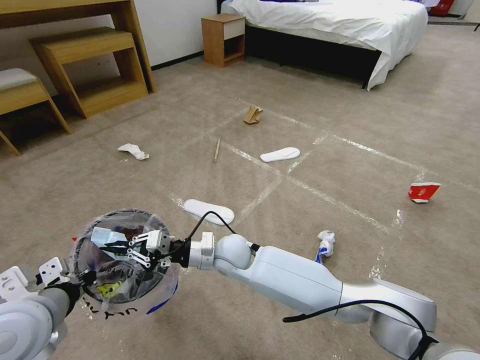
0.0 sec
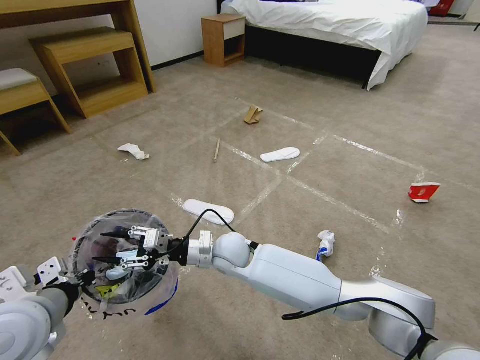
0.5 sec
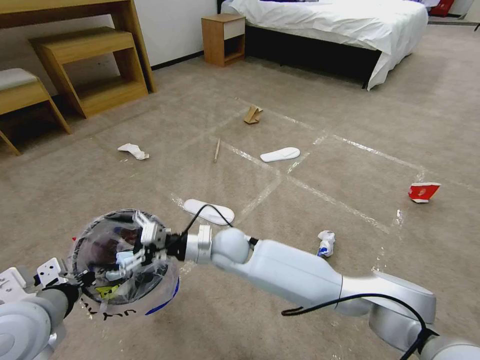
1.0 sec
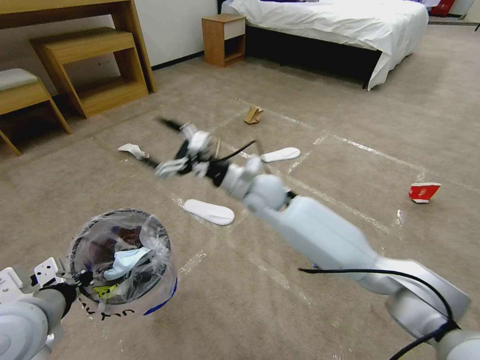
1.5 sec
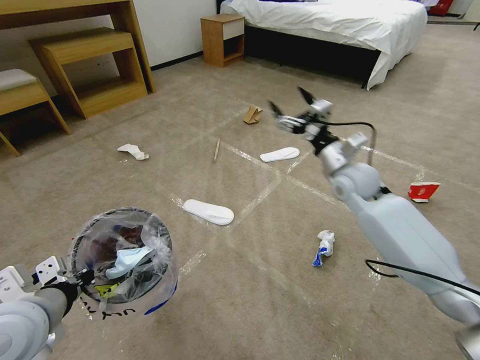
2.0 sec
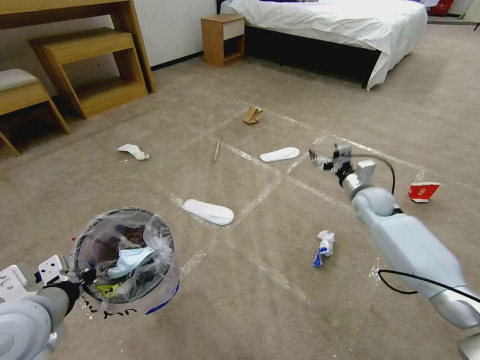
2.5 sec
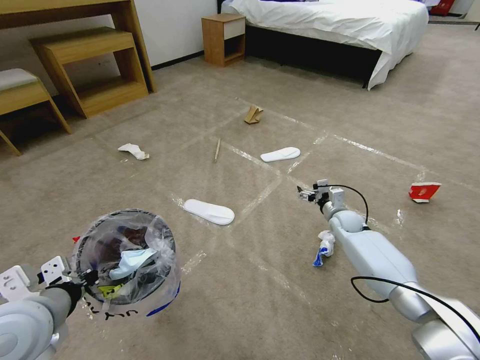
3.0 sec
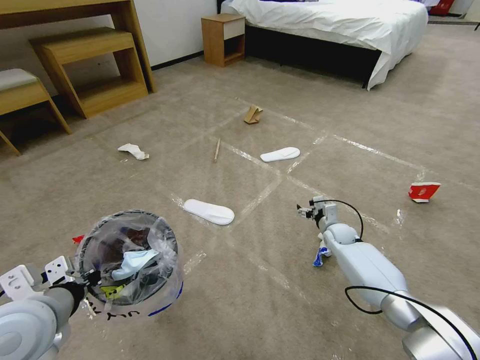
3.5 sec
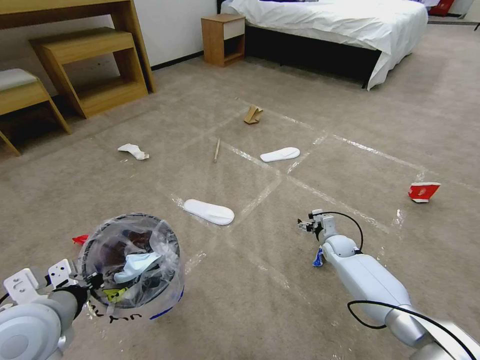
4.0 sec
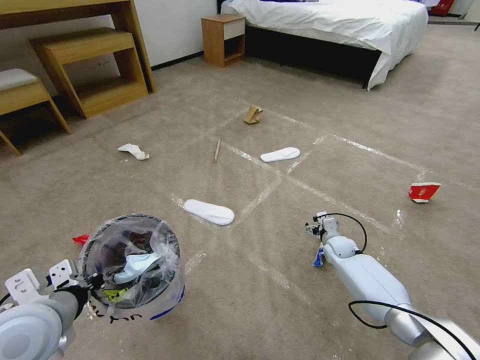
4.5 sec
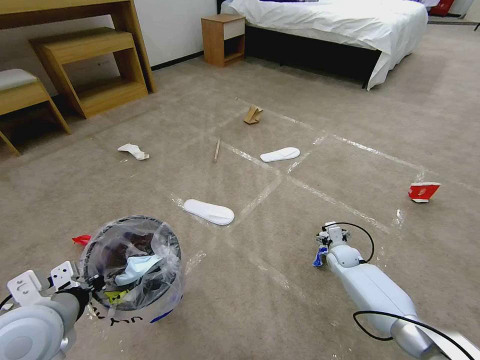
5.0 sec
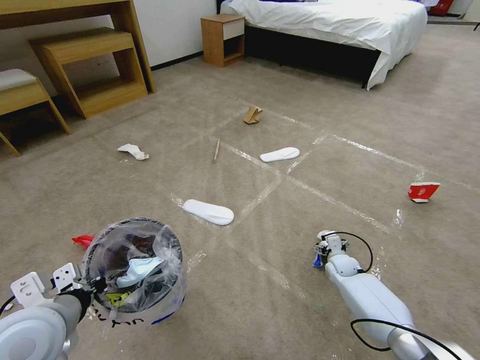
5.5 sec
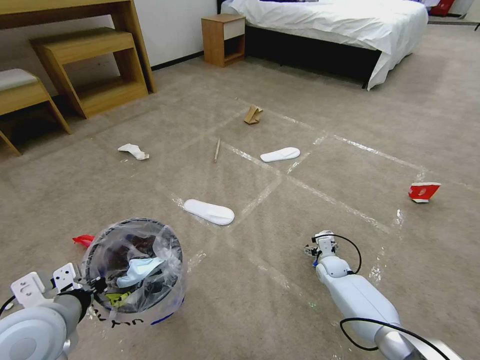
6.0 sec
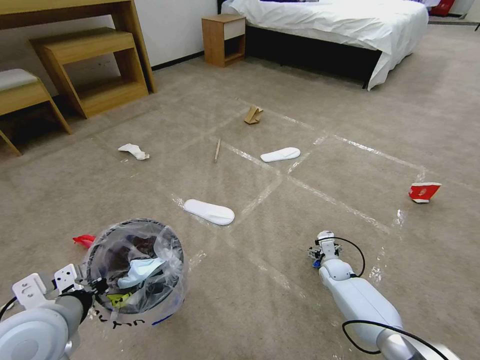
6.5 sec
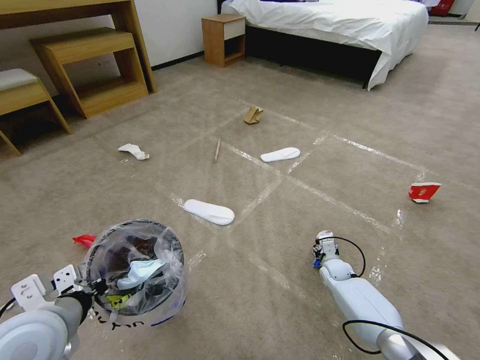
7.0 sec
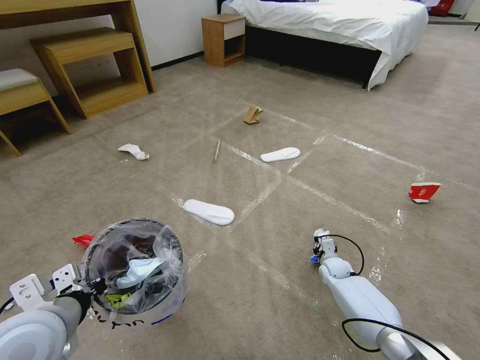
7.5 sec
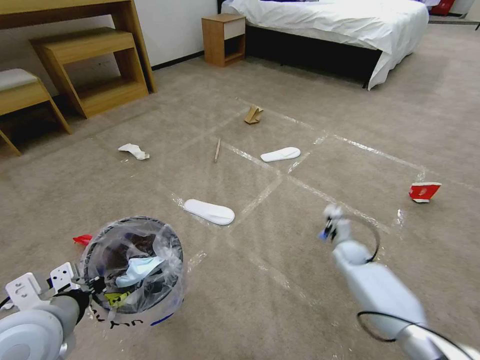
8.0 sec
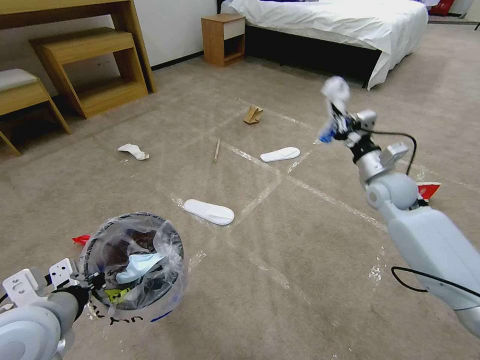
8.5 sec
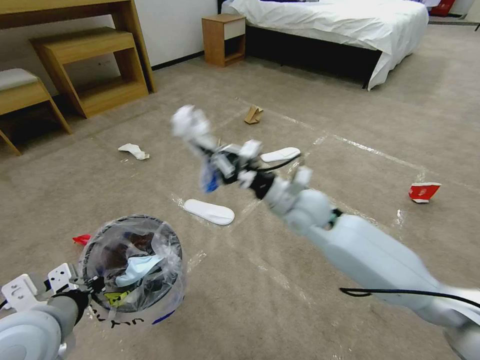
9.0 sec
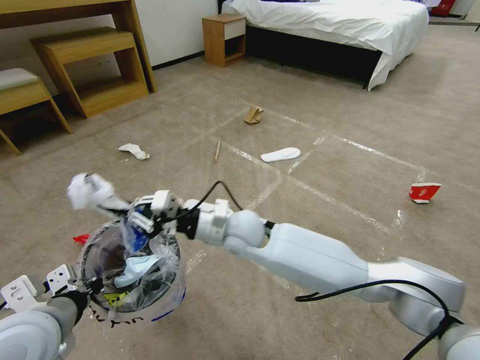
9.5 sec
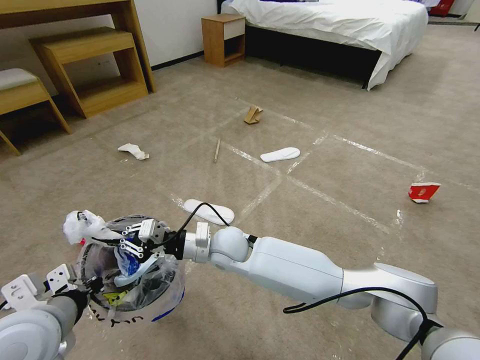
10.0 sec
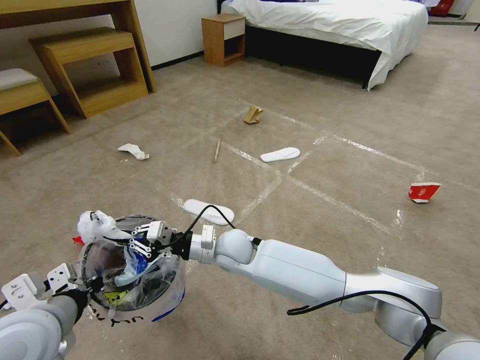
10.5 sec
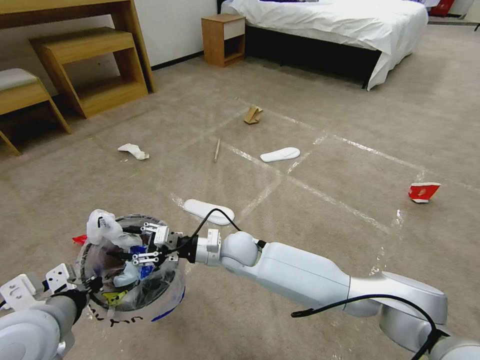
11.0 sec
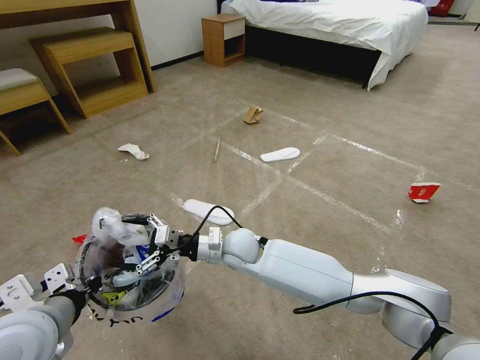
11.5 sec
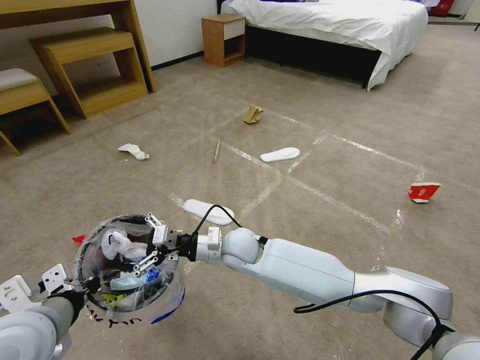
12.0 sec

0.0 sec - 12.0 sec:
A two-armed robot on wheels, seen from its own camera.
Task of the whole recording: Pick up the trash bin and place the garbage on the floor into it.
0.0 sec - 2.0 sec: The right gripper heads to the right and upward, covering some 30 cm, and opens its fingers.
2.0 sec - 4.0 sec: The right gripper shifts some 30 cm downward.
4.0 sec - 6.0 sec: The right gripper heads downward, covering roughly 5 cm.
6.0 sec - 8.0 sec: The right gripper goes some 5 cm upward, and closes up.
8.0 sec - 10.0 sec: The right gripper travels to the left and upward by roughly 40 cm.
10.0 sec - 12.0 sec: The right gripper opens its fingers.

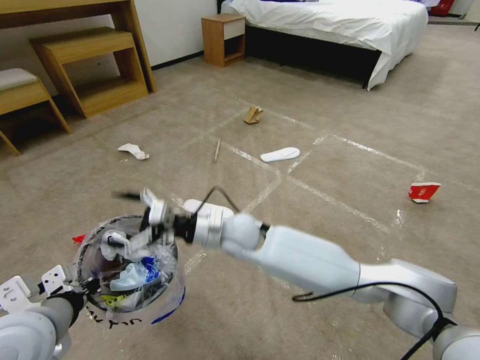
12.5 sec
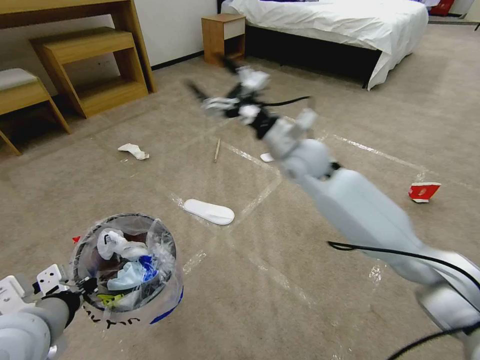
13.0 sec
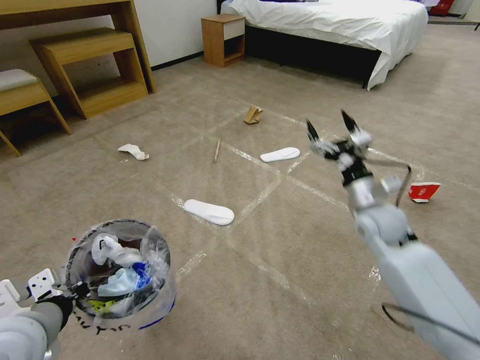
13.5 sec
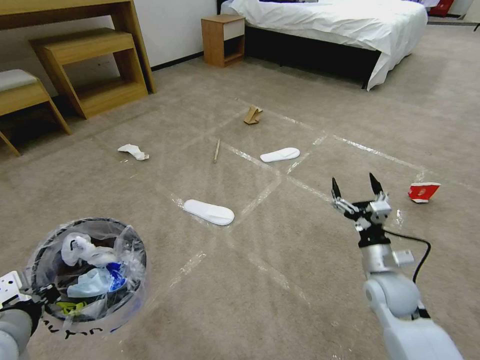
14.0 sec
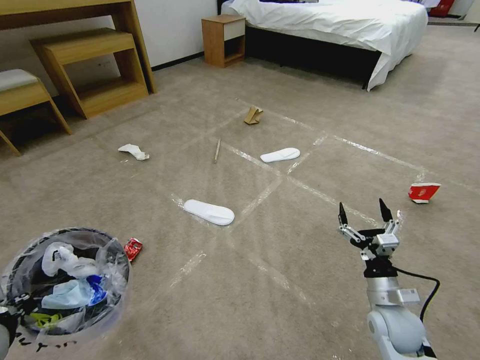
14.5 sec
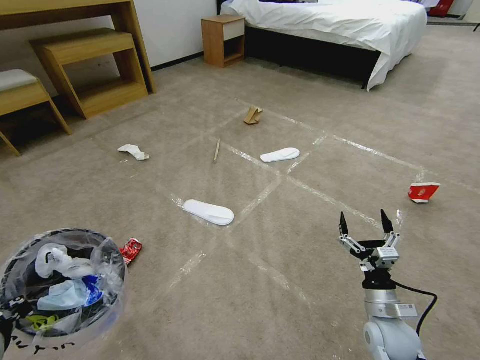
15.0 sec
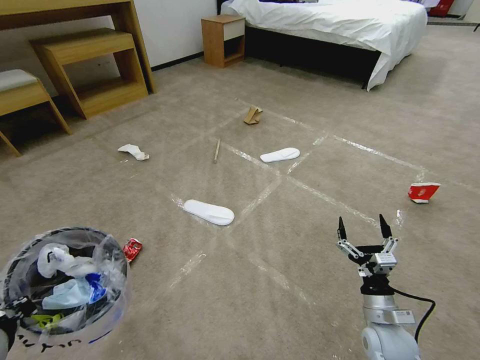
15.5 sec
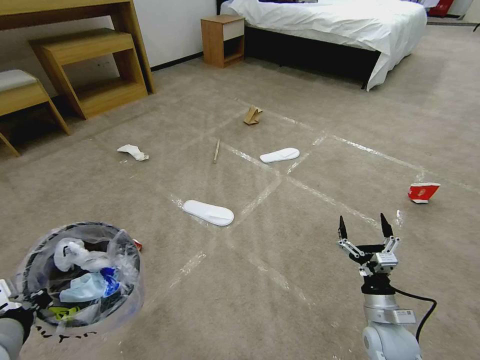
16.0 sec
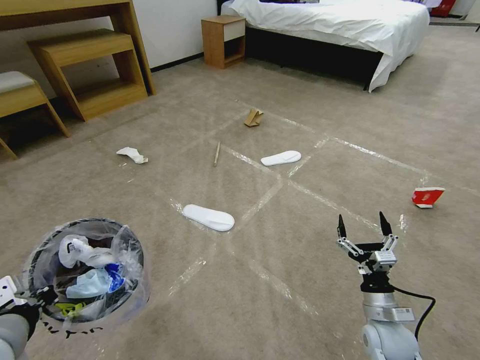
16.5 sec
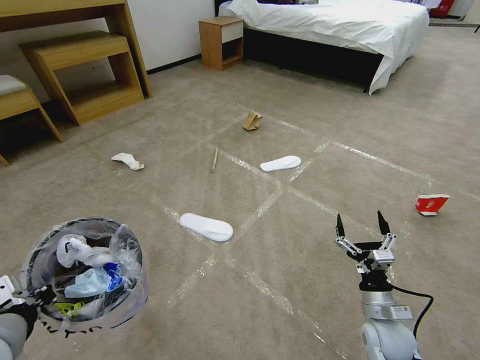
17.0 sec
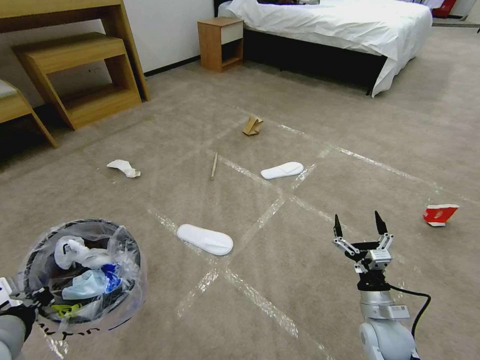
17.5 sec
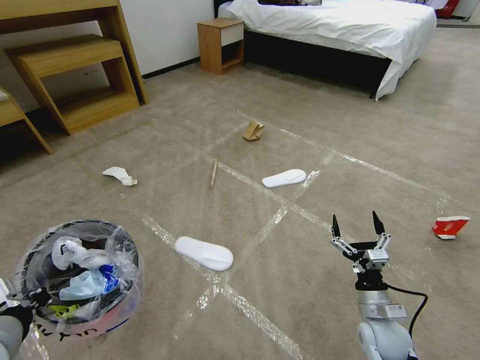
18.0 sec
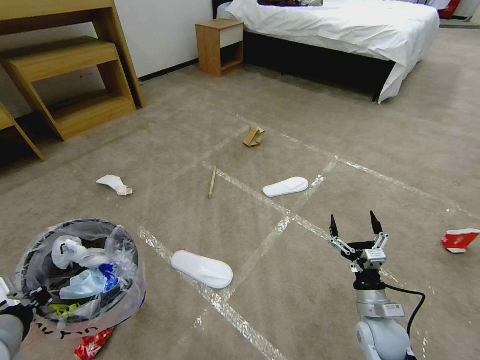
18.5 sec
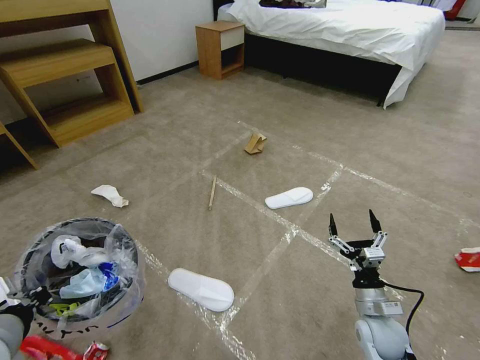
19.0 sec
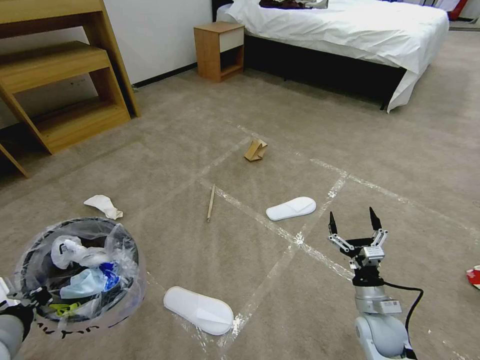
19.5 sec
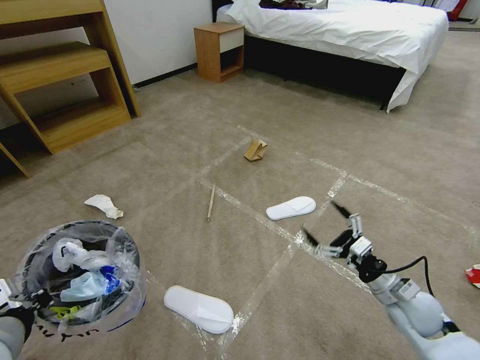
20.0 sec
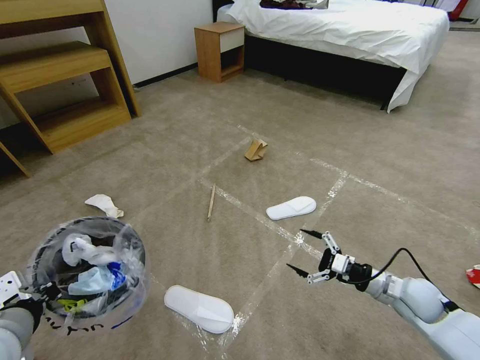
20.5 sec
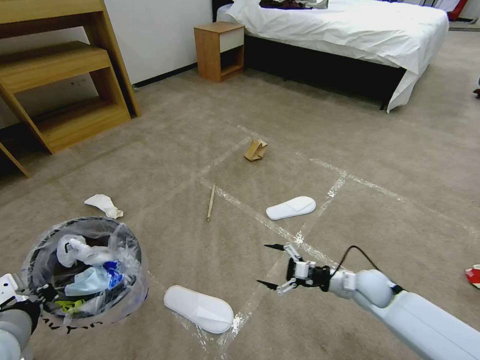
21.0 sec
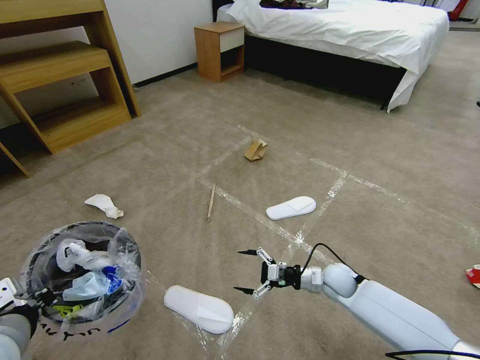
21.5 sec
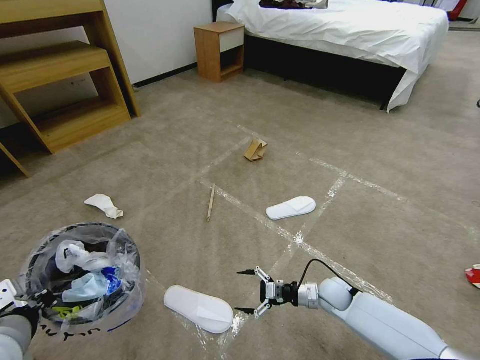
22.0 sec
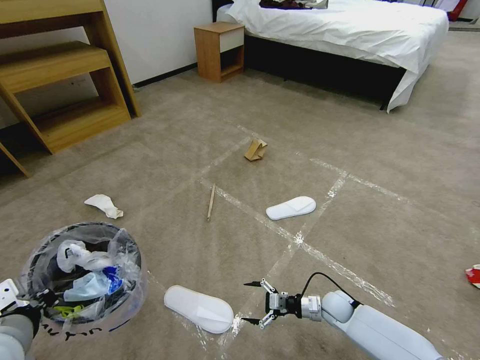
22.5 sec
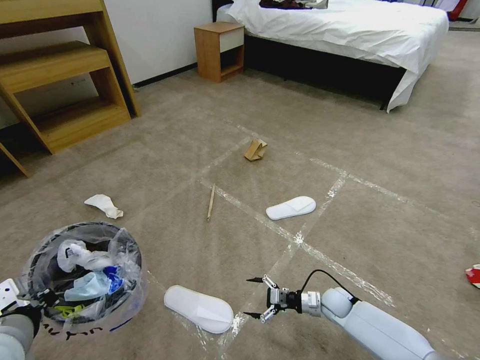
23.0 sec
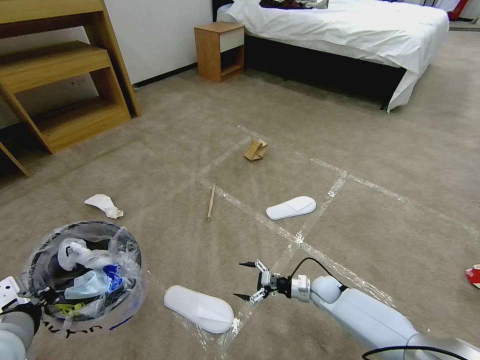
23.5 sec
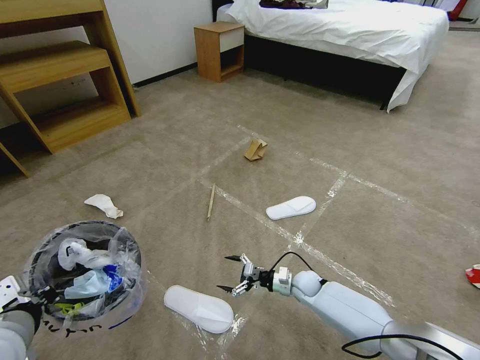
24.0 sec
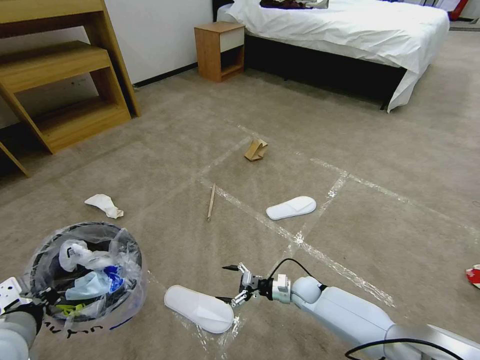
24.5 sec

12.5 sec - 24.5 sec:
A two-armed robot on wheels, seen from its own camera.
Task of the whole recording: Pick up the trash bin and place the garbage on the floor into it.
12.5 sec - 14.5 sec: The left gripper is displaced to the left by roughly 5 cm, while the right gripper heads to the right and backward, covering some 35 cm.
14.5 sec - 16.5 sec: The grippers stay close to where they were, moving slightly.
18.5 sec - 20.5 sec: The right gripper shifts about 10 cm to the right, forward and upward.
20.5 sec - 22.5 sec: The right gripper travels downward and to the left by roughly 20 cm.
22.5 sec - 24.5 sec: The right gripper travels to the left by approximately 5 cm.

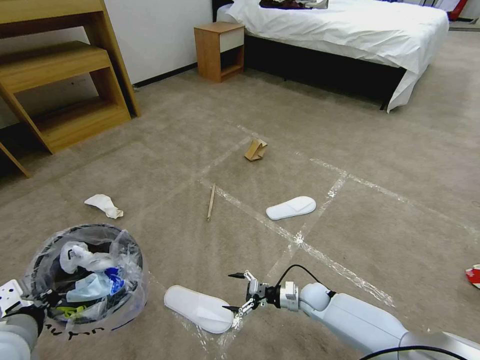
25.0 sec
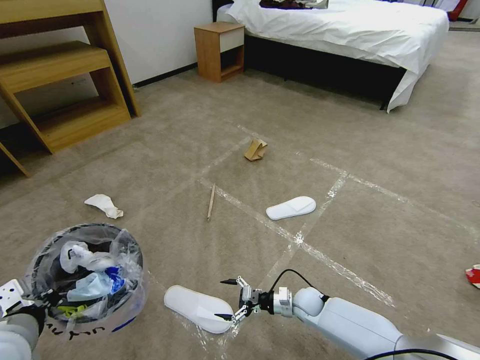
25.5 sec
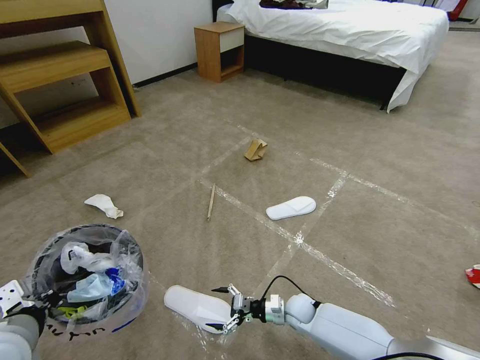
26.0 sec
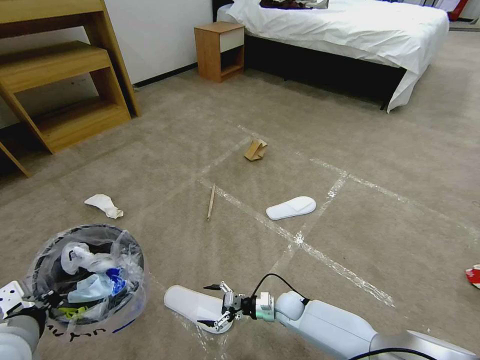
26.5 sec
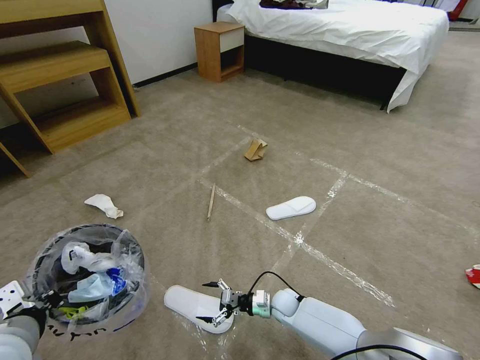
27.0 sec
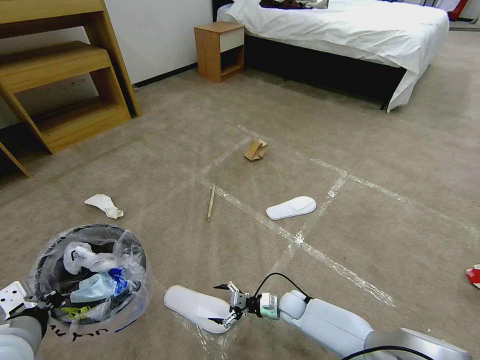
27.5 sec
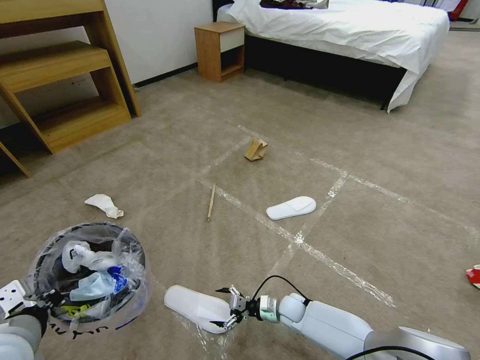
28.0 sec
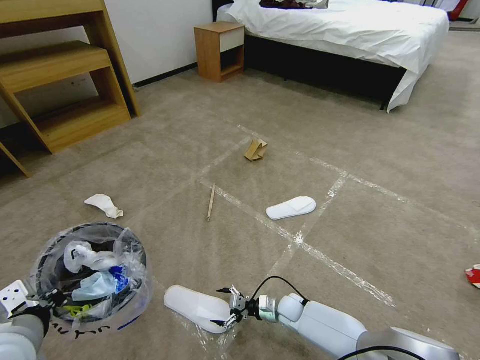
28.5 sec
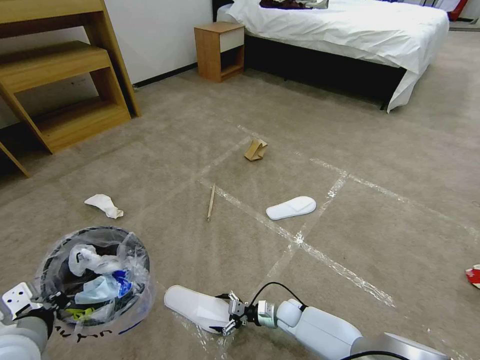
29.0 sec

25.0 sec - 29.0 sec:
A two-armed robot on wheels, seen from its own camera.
Task of the whole recording: Pick up the trash bin and place the garbage on the floor into it.
25.0 sec - 27.0 sec: The right gripper shifts some 10 cm to the left.
27.0 sec - 29.0 sec: The right gripper shifts by some 5 cm.
